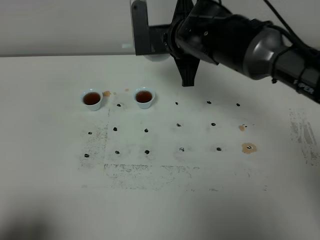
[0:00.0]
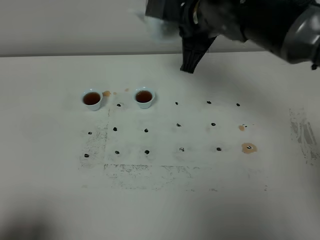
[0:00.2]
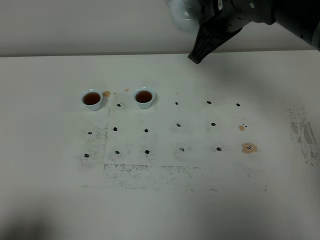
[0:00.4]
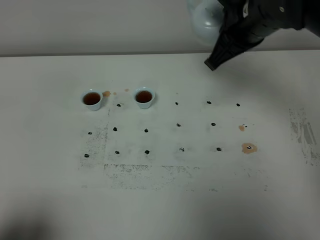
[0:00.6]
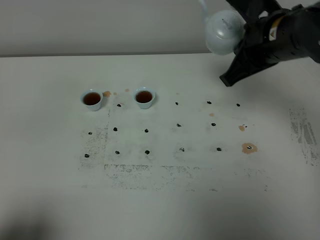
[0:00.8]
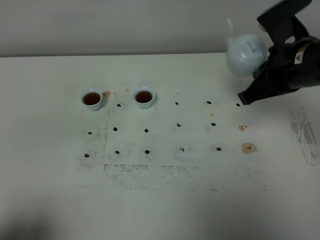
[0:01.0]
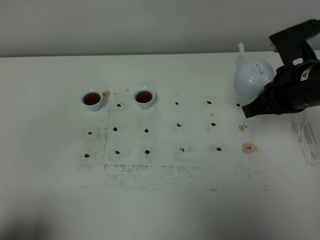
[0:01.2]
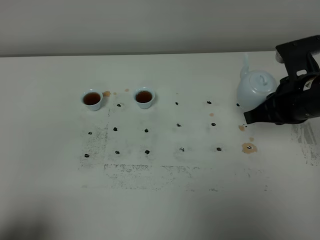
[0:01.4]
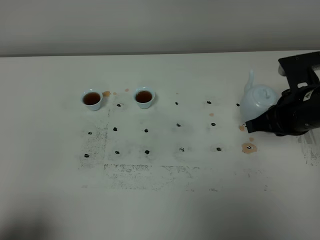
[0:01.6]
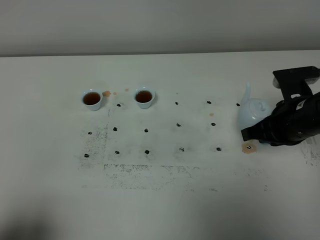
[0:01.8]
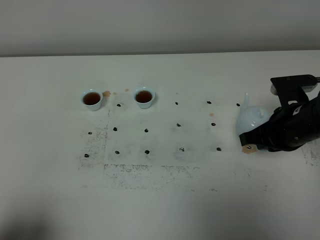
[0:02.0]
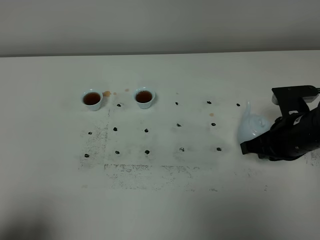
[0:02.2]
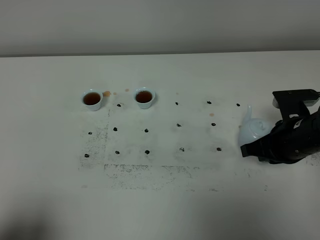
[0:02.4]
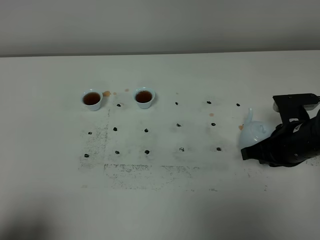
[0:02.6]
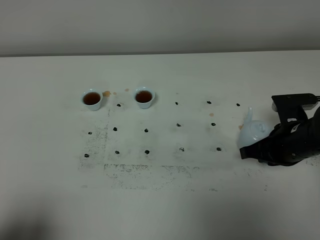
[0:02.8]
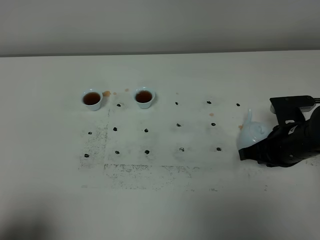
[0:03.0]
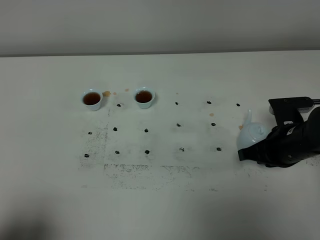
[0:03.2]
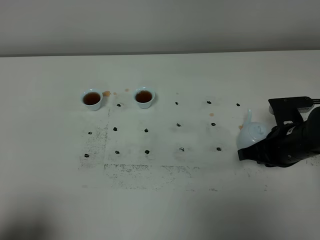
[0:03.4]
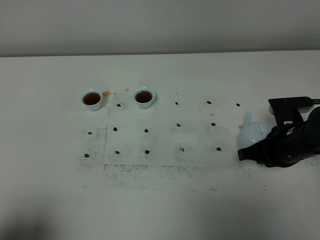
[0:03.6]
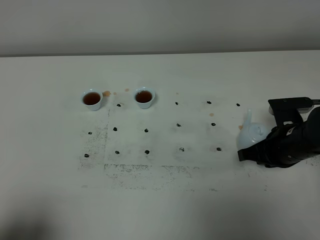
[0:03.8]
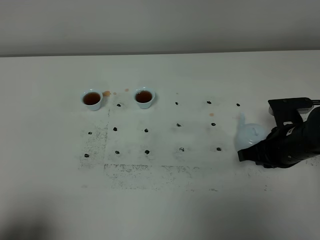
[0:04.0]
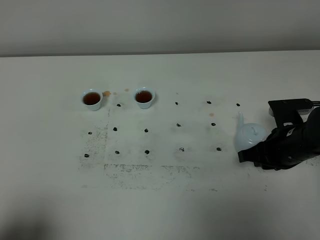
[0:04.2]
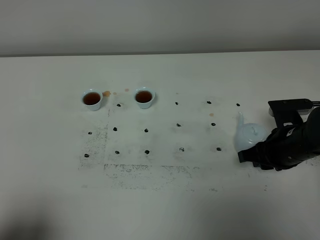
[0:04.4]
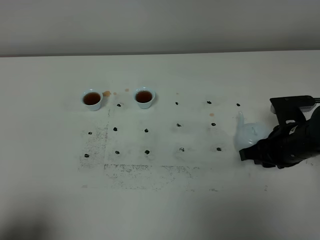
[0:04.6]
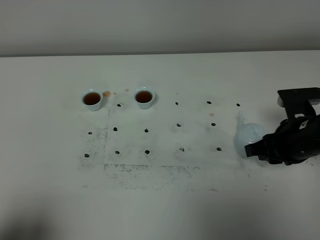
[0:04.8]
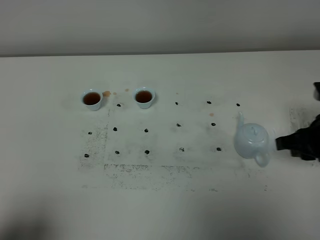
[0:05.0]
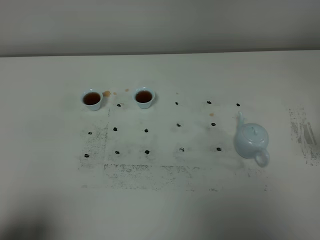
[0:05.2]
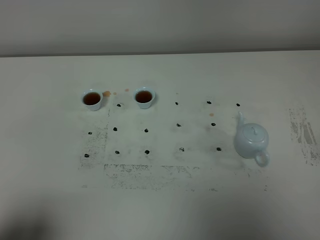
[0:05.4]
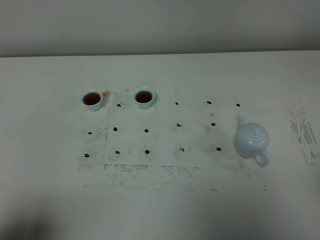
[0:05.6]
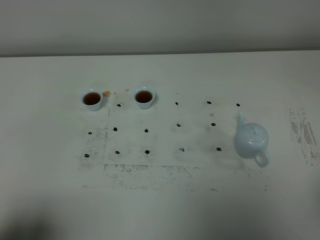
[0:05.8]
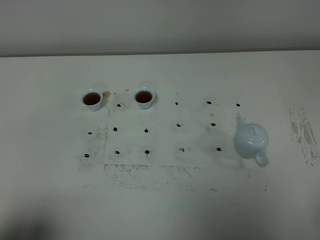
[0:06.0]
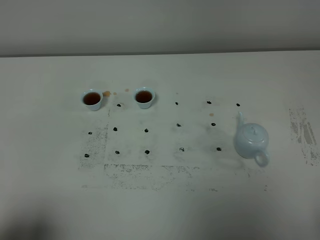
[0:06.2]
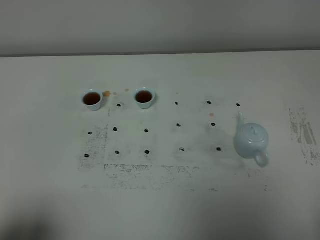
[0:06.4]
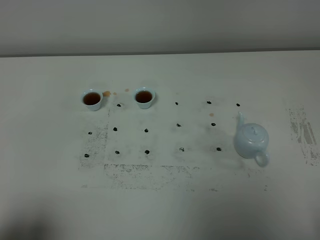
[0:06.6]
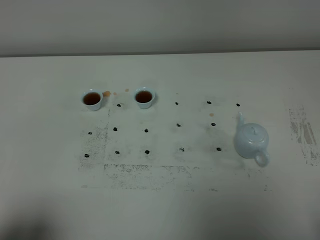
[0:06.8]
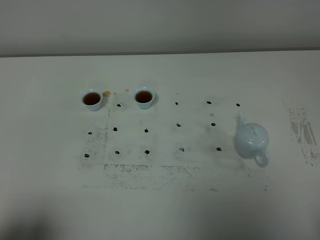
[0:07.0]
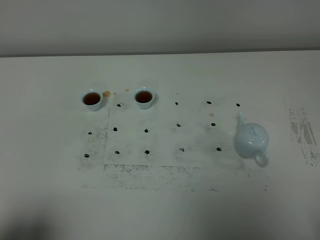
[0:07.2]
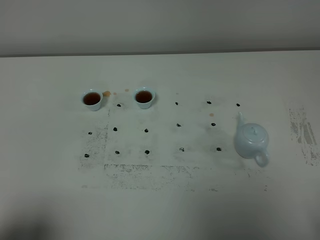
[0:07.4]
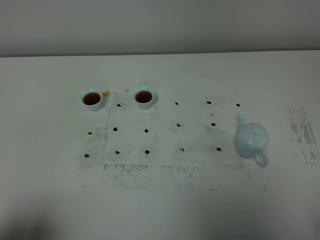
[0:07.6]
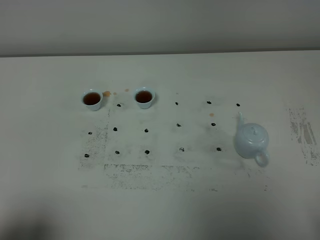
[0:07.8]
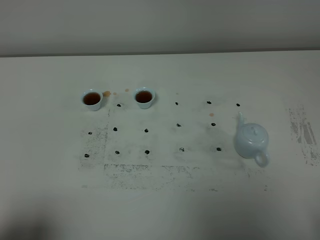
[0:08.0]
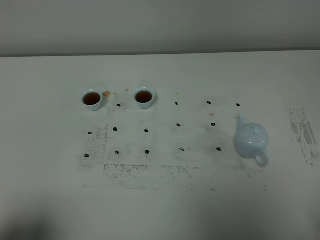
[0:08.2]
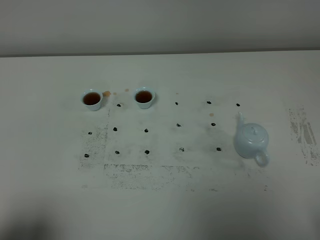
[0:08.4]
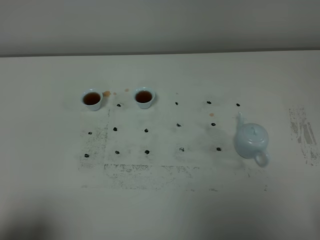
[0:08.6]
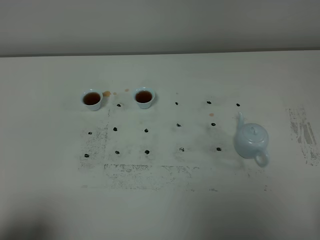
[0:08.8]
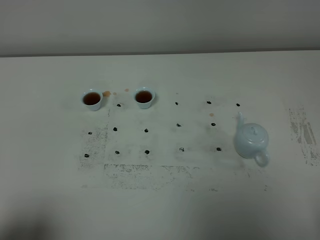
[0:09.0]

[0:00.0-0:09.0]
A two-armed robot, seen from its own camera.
Task of the whole recording: grasp the blue porcelain teapot and pour the tea into the two blue porcelain teacups one by one, put the blue porcelain teapot back in its original place.
0:00.0 to 0:01.6: The right gripper goes some 20 cm to the right and backward.
0:01.6 to 0:03.0: The right gripper travels downward by about 10 cm.
0:03.0 to 0:04.4: The right gripper opens up.
0:04.4 to 0:06.0: The right gripper goes some 30 cm backward and upward.

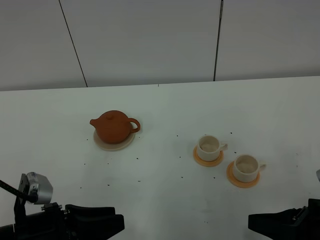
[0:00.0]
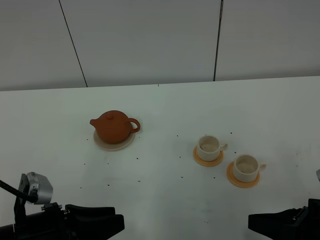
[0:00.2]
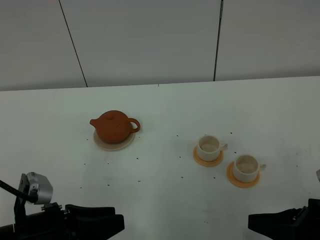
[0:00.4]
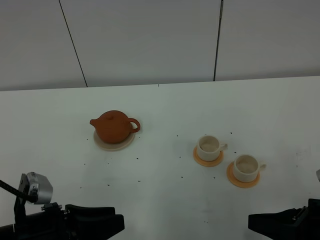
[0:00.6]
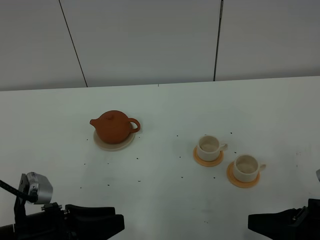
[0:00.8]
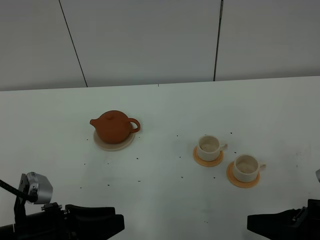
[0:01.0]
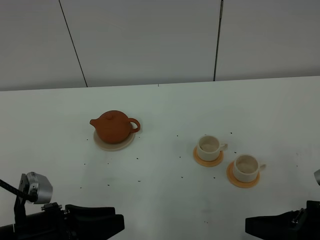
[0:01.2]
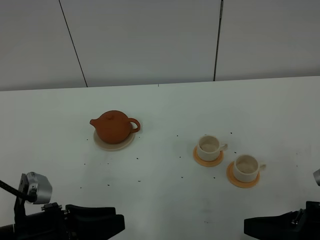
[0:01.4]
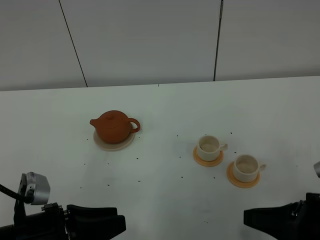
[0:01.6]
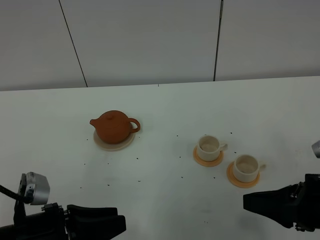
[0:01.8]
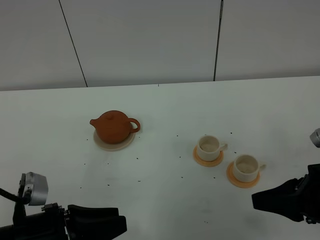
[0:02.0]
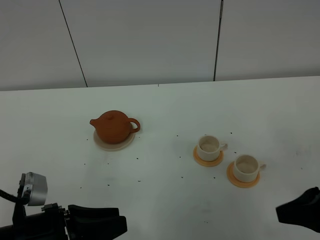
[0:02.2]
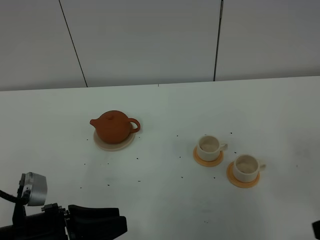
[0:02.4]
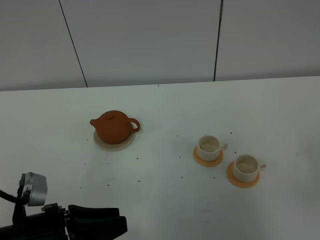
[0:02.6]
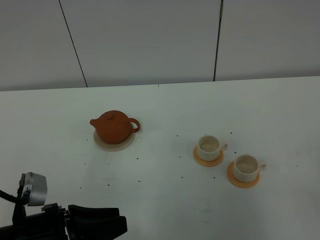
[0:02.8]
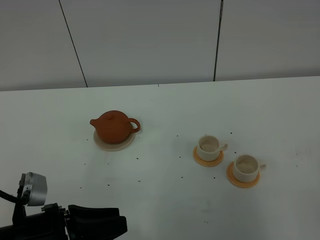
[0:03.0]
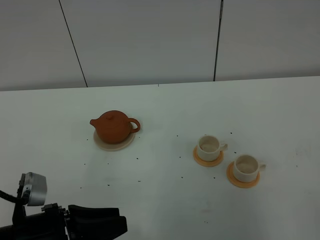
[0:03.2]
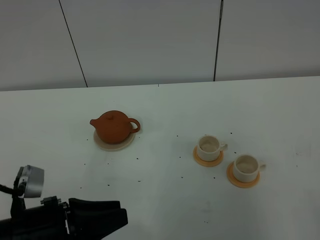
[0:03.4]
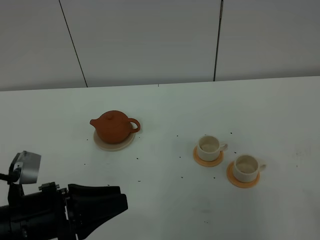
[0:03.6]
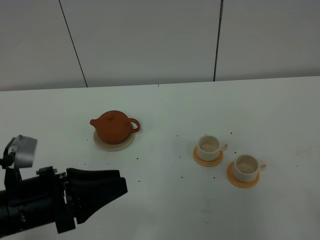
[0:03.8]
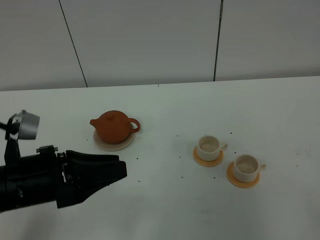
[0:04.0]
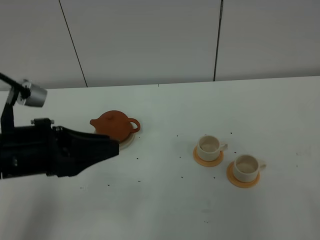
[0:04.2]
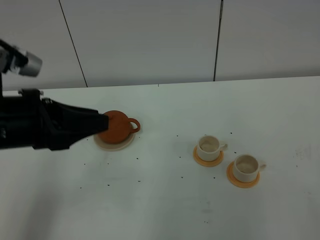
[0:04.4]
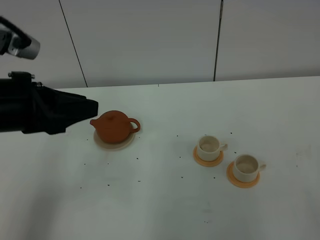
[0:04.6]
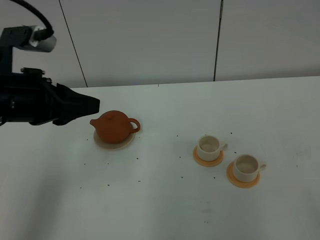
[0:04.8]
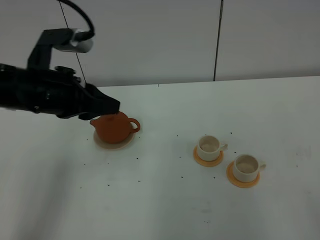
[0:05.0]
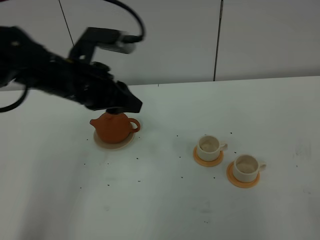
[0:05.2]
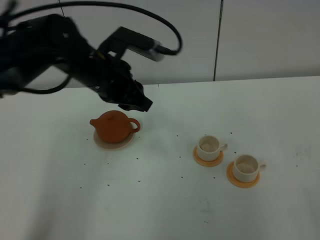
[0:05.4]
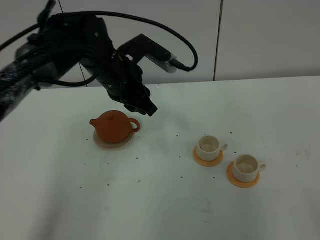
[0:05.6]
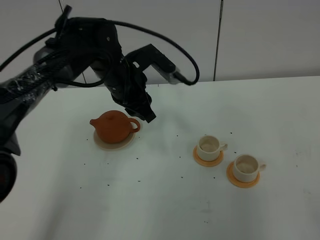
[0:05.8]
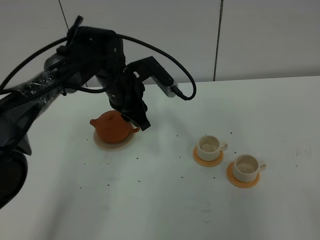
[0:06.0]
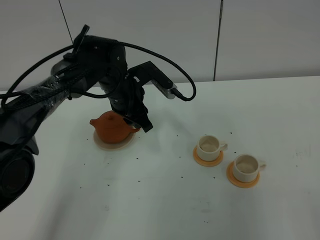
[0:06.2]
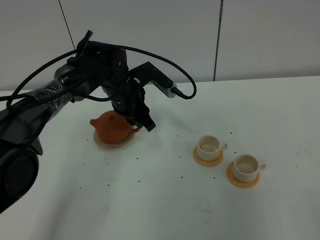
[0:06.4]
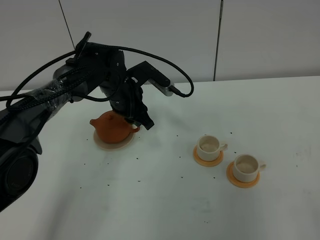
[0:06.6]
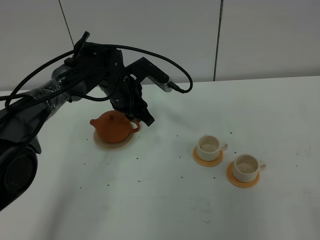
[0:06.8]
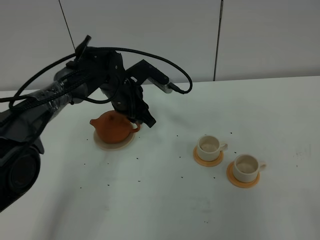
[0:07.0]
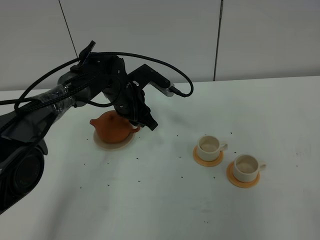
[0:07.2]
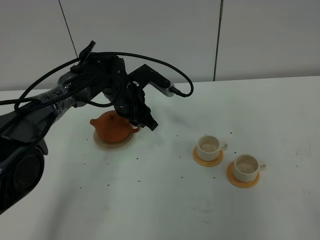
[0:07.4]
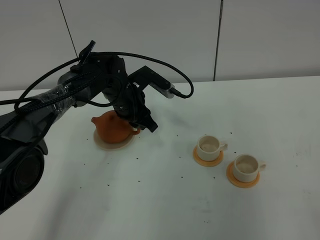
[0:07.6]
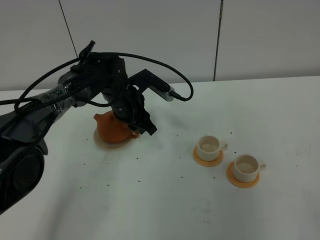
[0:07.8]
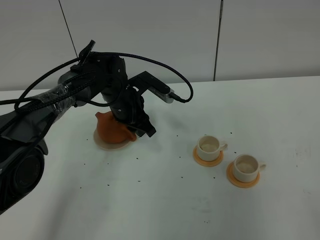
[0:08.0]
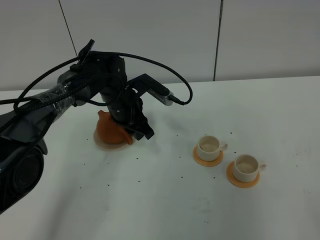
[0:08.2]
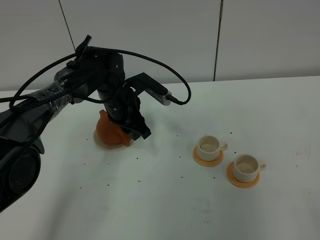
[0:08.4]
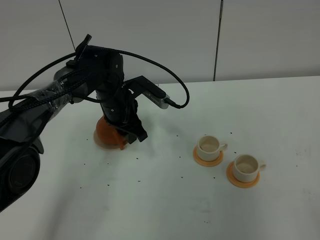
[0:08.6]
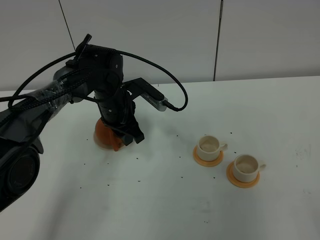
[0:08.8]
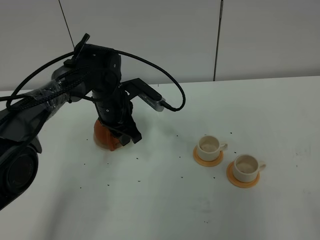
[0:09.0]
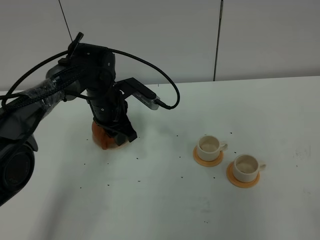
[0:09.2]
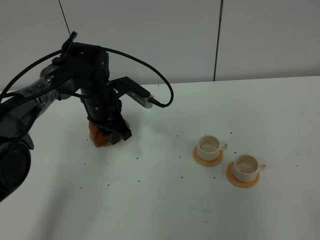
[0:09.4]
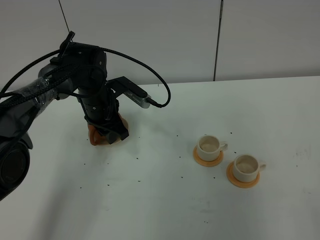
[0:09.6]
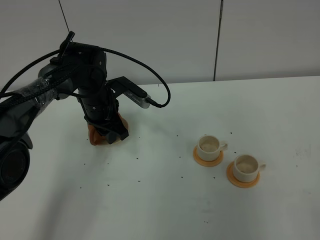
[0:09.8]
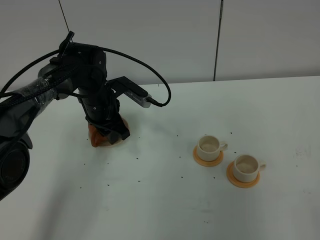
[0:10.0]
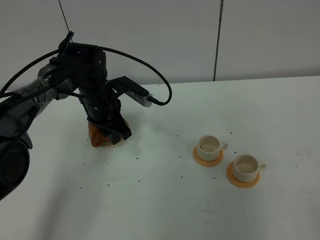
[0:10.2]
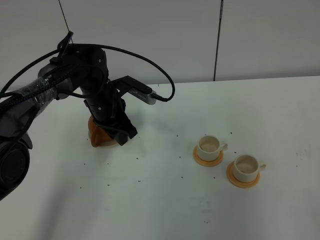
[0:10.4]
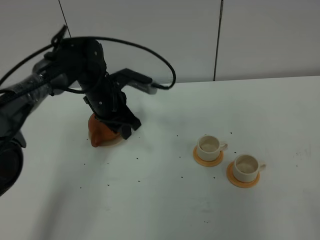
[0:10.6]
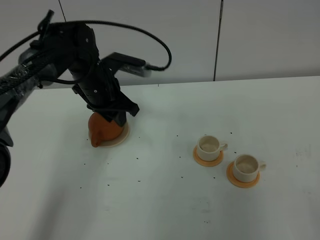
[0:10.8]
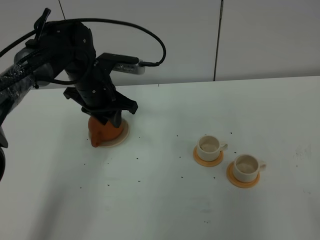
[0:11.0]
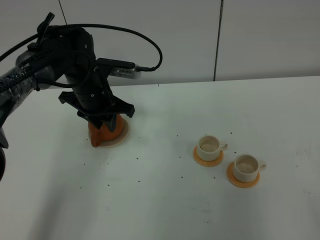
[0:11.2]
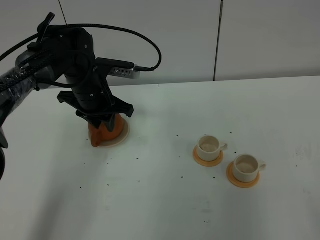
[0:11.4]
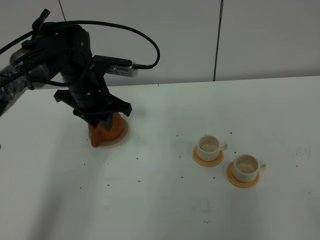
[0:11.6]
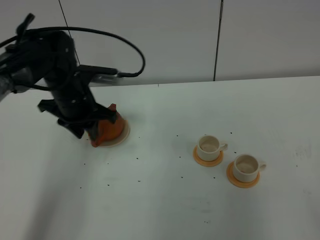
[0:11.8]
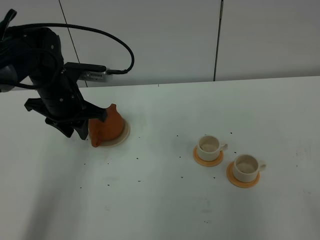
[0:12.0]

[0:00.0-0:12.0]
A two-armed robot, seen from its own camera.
Task of the whole recording: grasp the brown teapot and pour the tea into the two white teacups one by one, put the brown teapot back in its original place.
0:00.0 to 0:01.6: The grippers make only small movements.
0:01.6 to 0:03.0: The right gripper goes about 15 cm backward, upward and to the right.
0:03.0 to 0:04.4: The left gripper heads upward and forward, covering some 20 cm.
0:04.4 to 0:06.0: The left gripper heads forward, downward and to the right, covering some 25 cm.
0:06.0 to 0:07.6: The left gripper travels downward by approximately 5 cm.
0:07.6 to 0:10.4: There are only small adjustments of the grippers.
0:10.4 to 0:12.0: The left gripper shifts about 10 cm upward and to the left.

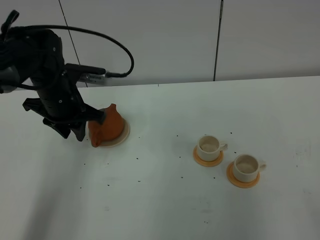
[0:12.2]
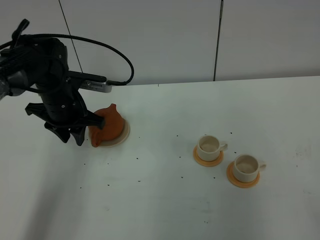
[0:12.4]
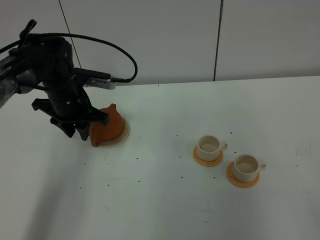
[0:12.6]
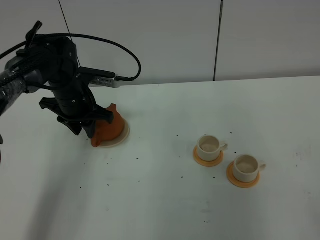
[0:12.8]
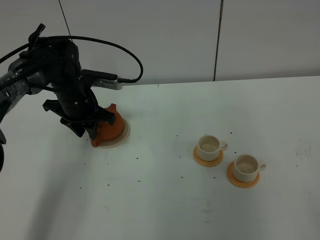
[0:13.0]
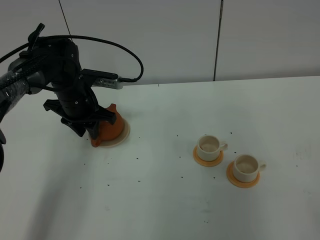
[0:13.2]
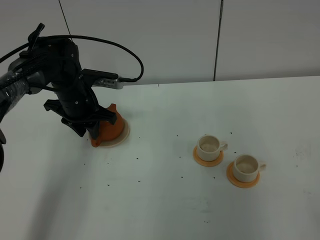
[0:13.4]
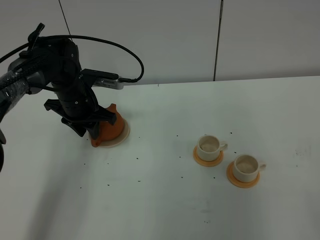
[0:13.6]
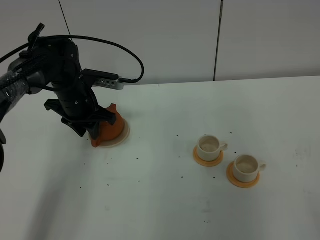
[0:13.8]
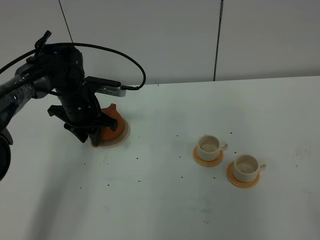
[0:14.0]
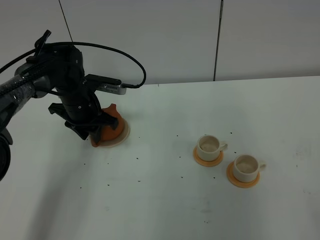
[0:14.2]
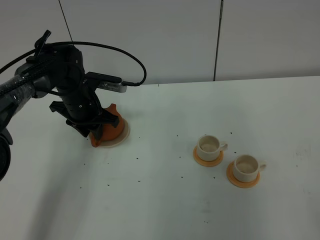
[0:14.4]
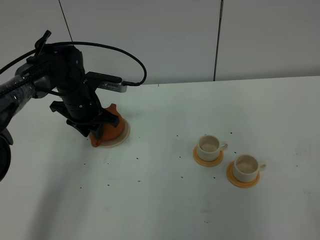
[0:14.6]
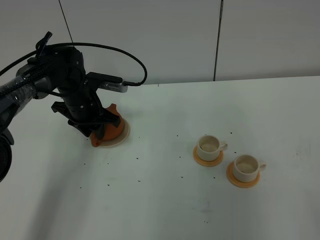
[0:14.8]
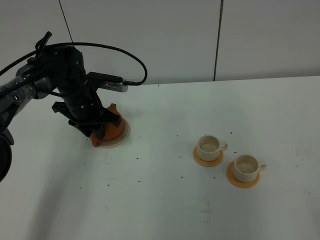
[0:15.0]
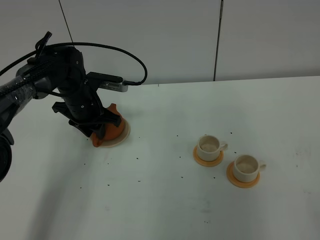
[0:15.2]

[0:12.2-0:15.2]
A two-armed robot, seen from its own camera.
Task of the whole recording: grasp the brown teapot and pour the tea into the two white teacups one by one, put the brown teapot back in its original place.
0:12.2 to 0:13.8: The left gripper shifts by roughly 5 cm.
0:13.8 to 0:15.2: The grippers move only a little.
